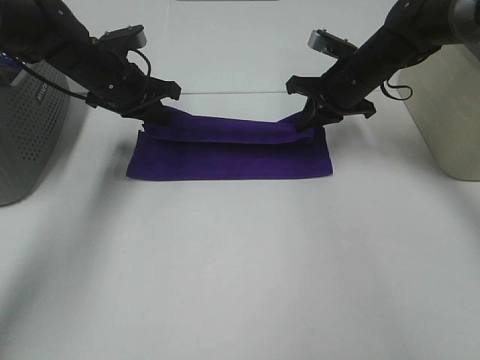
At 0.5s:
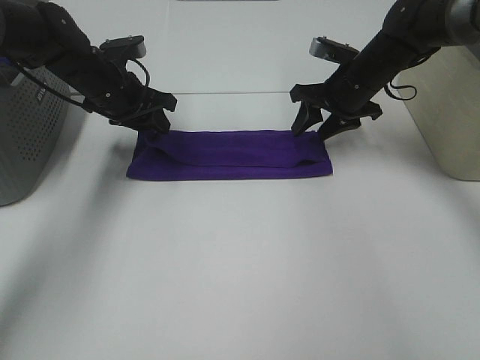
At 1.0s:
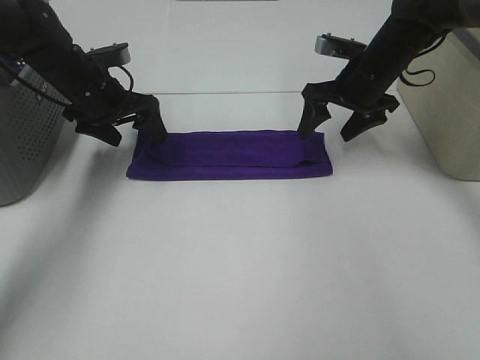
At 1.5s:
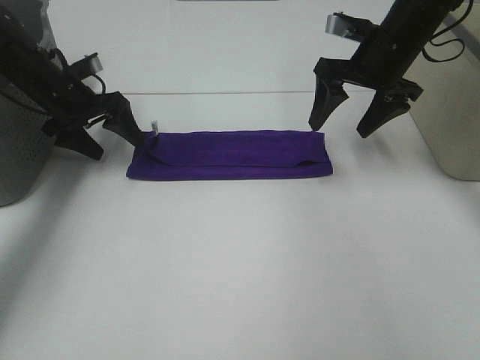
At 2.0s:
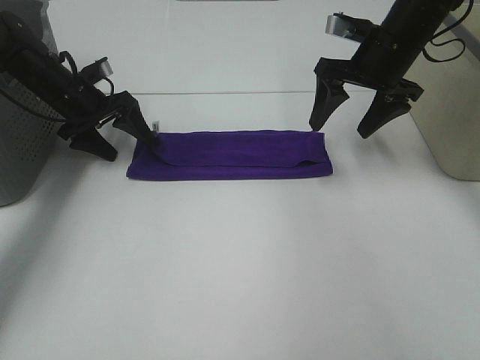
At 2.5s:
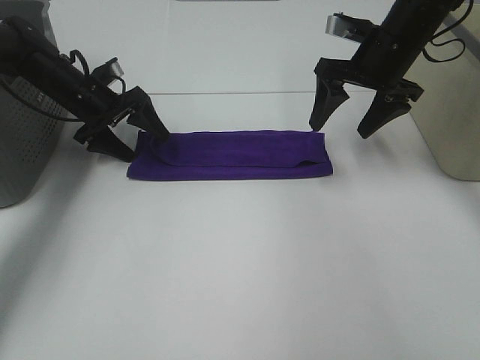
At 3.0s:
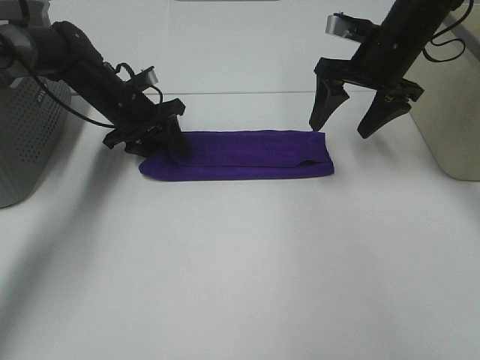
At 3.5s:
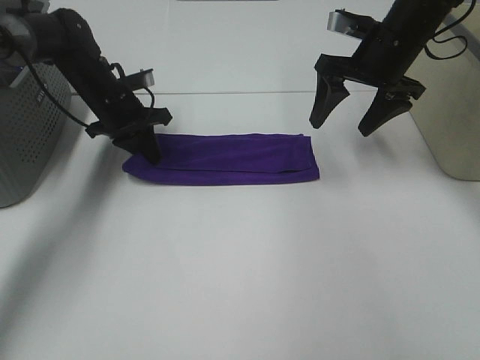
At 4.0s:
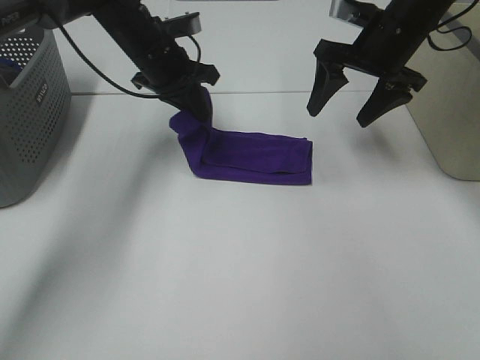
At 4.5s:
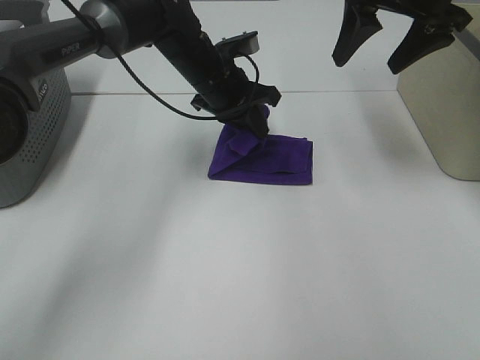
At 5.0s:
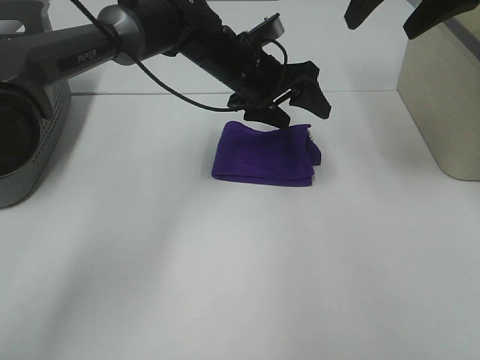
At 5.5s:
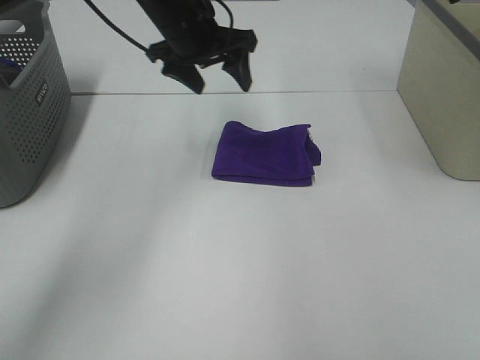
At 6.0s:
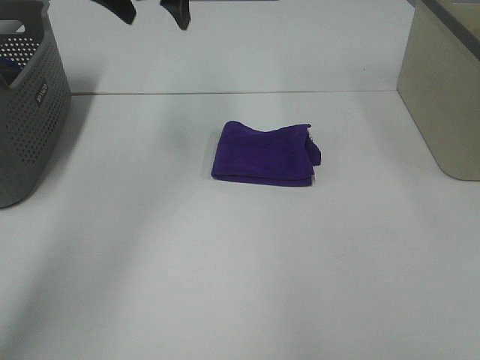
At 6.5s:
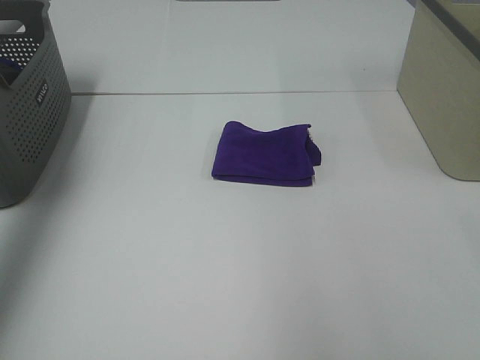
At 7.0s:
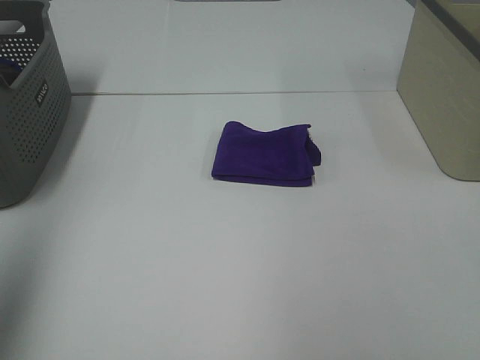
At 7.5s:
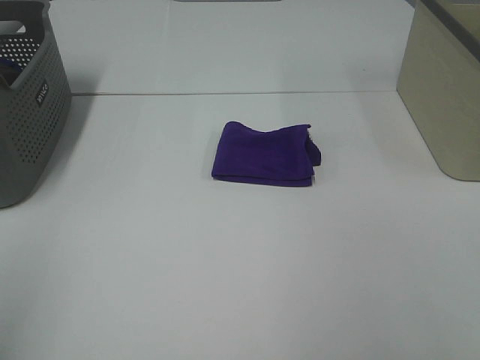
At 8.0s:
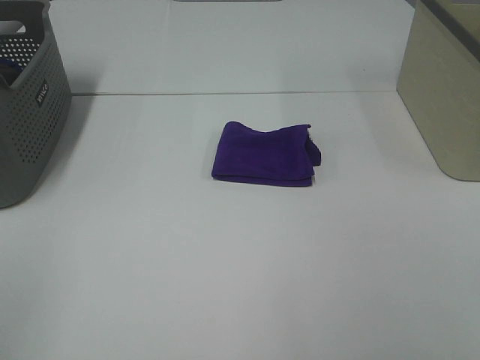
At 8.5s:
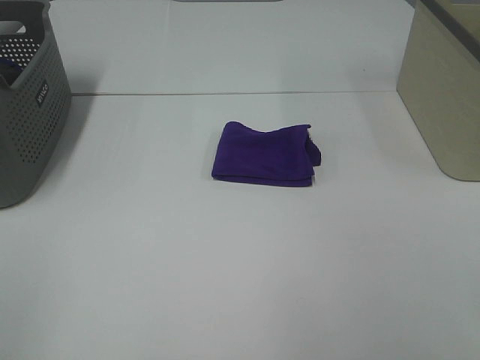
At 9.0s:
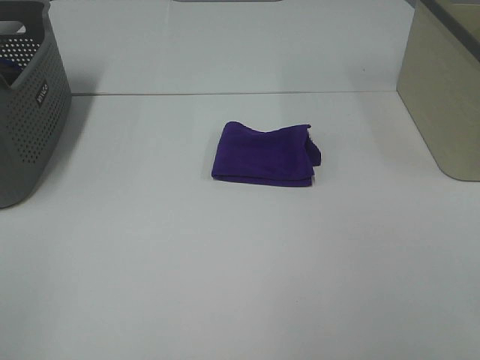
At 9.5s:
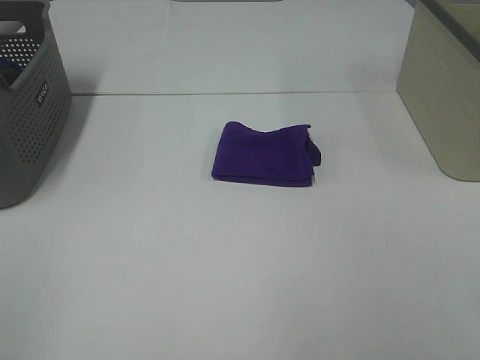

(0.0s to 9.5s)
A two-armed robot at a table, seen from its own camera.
Task of the whole recording: Fold towels.
Step, 0.5s - 4.5s: Left hand: fold the purple towel from left to right.
0.0s - 2.0s: The left gripper moves to the left, approximately 5 cm, and opens its fingers. Meanwhile the right gripper shifts roughly 5 cm upward, and opens its fingers.
2.0s - 4.0s: The left gripper moves to the right and upward, some 15 cm, and closes its fingers.
4.0s - 5.5s: The right gripper travels upward and backward by about 20 cm. The left gripper heads upward, covering about 5 cm, goes to the right and returns, about 10 cm each way, and opens up.
5.5s - 7.5s: The left gripper heads backward and to the left, covering some 50 cm. Meanwhile the right gripper is displaced backward by approximately 30 cm.
